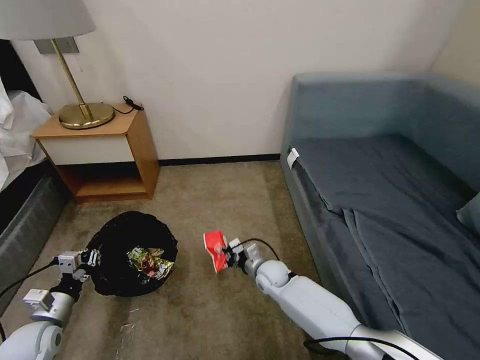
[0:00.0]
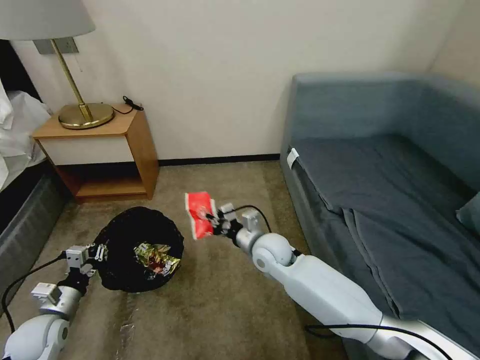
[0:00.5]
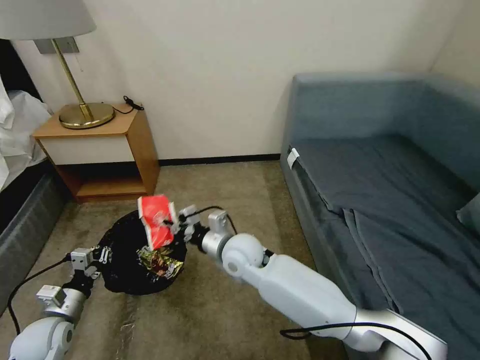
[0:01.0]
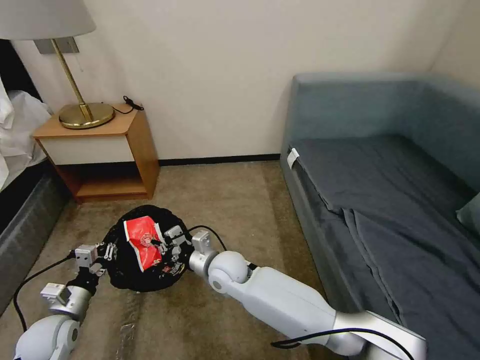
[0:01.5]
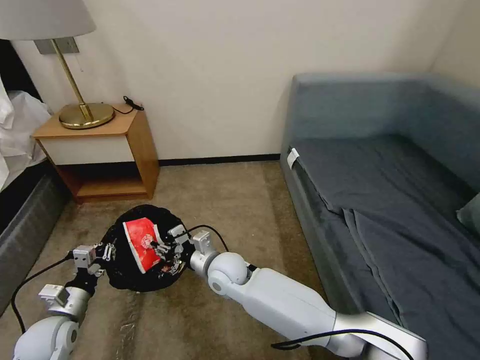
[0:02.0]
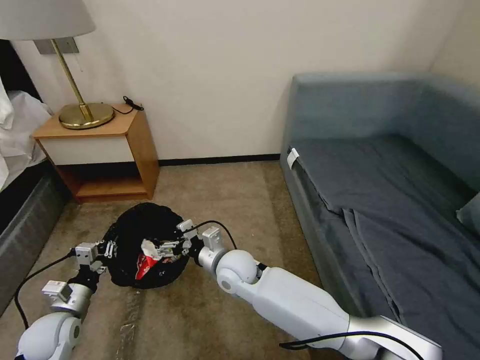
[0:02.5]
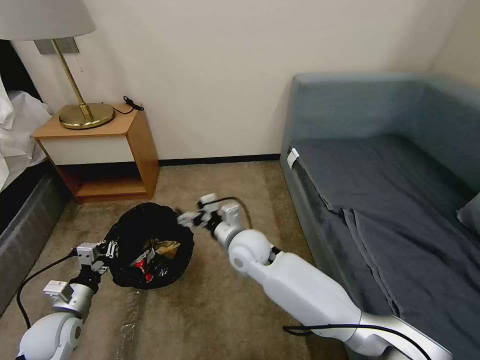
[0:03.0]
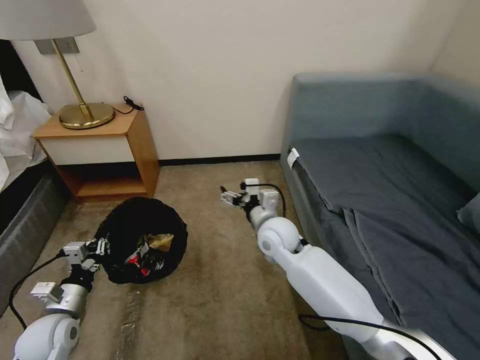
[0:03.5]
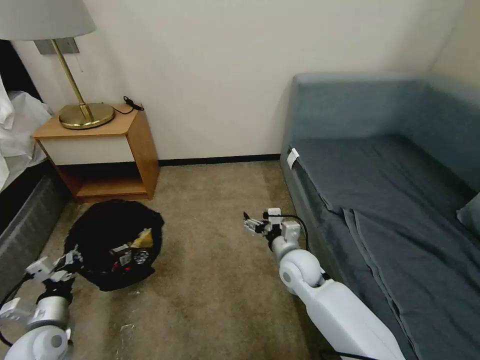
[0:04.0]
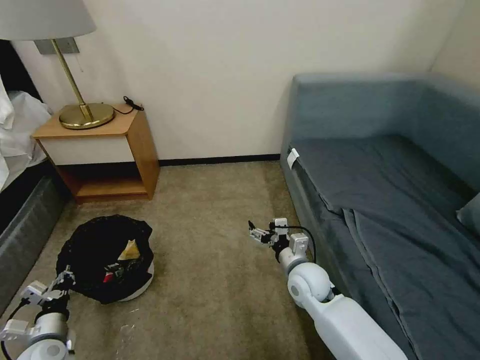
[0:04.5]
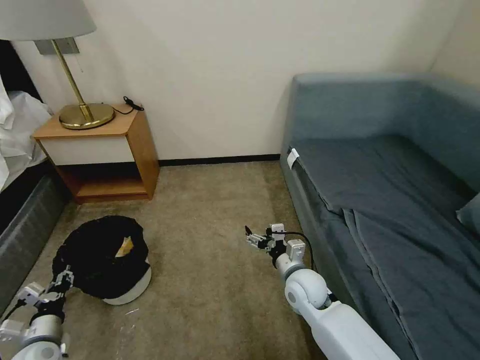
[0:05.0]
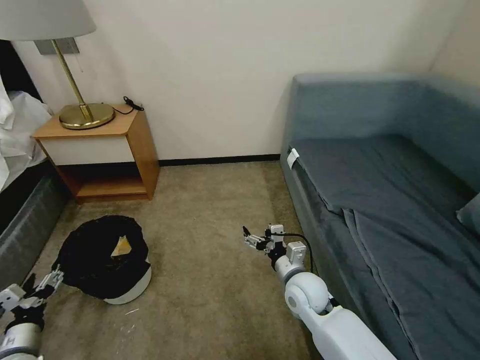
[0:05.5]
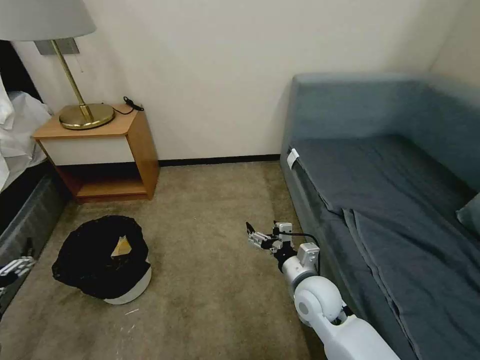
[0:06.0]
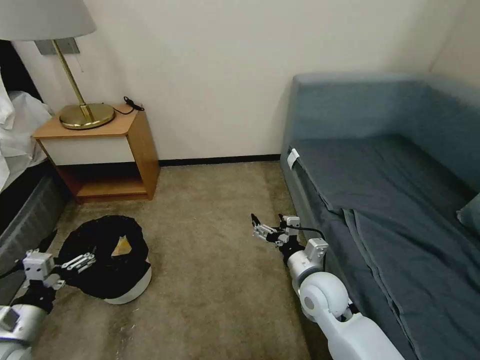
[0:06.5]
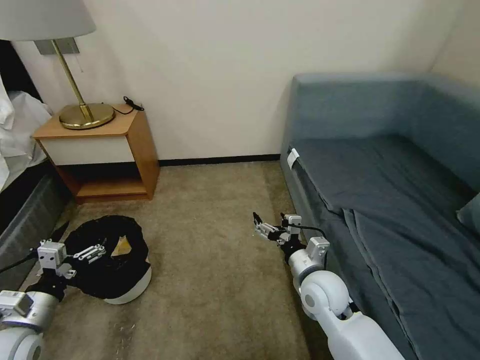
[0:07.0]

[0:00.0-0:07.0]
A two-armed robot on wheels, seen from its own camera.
Task of the whole recording: Pick up the trash bin, then pick up the garbage on the floor and place it into the trash bin.
0:00.0 to 0:02.0: The right gripper travels to the left and upward by roughly 20 cm, and opens its fingers.
0:02.0 to 0:03.5: The right gripper travels to the right, upward and forward by some 15 cm, and opens.
0:03.5 to 0:05.0: The right gripper shifts about 15 cm downward, backward and to the right; the left gripper moves downward, approximately 5 cm, and opens its fingers.
0:05.0 to 0:07.0: The left gripper shifts some 15 cm upward, and opens its fingers; the right gripper heads upward, covering some 5 cm.

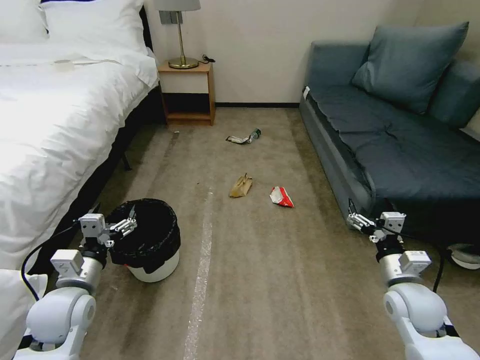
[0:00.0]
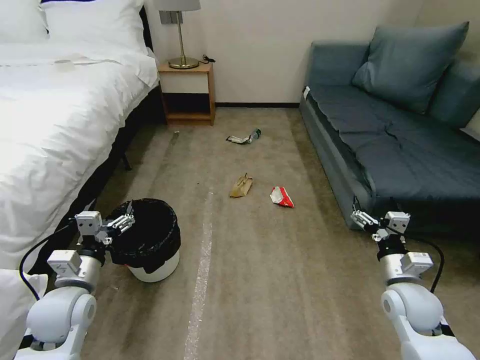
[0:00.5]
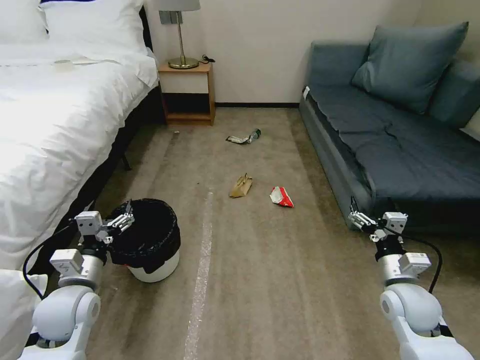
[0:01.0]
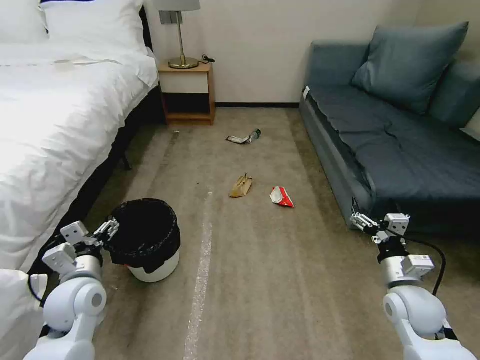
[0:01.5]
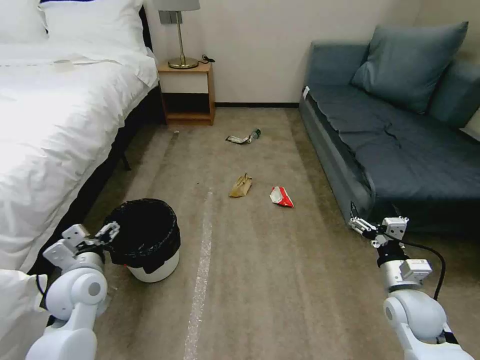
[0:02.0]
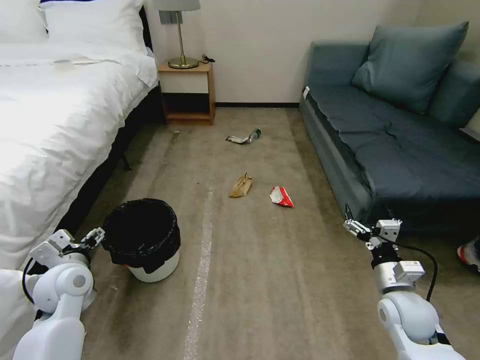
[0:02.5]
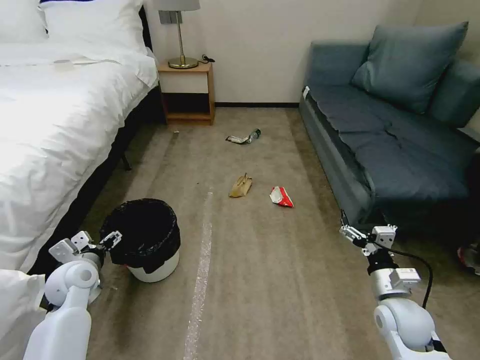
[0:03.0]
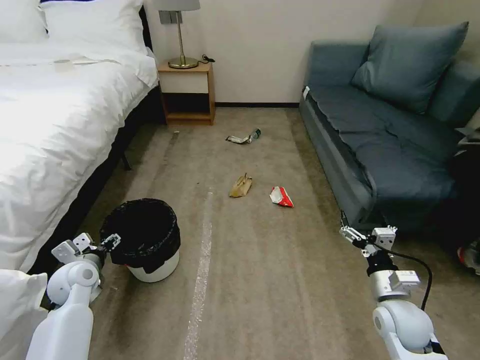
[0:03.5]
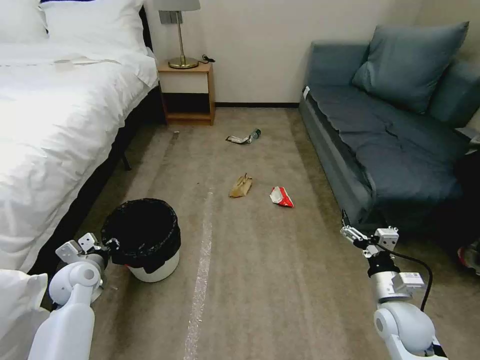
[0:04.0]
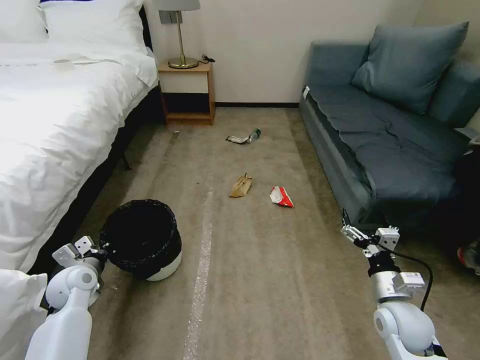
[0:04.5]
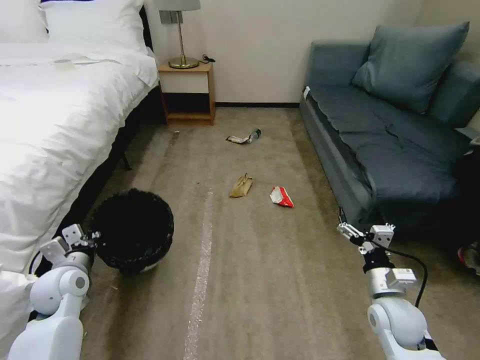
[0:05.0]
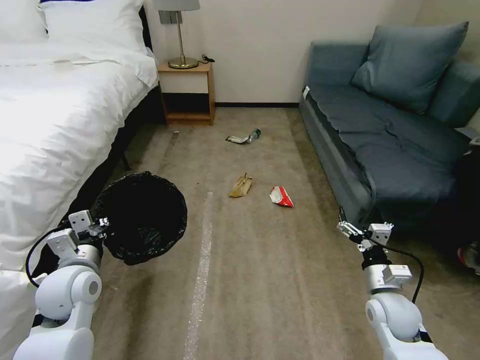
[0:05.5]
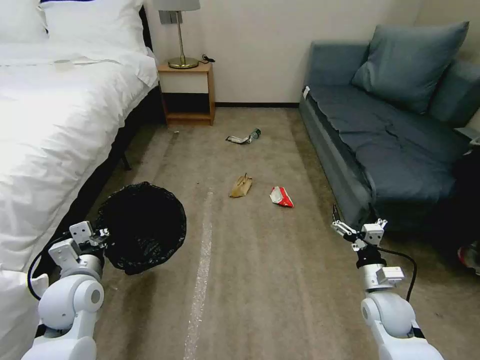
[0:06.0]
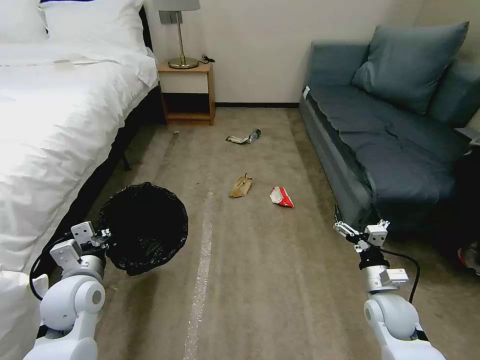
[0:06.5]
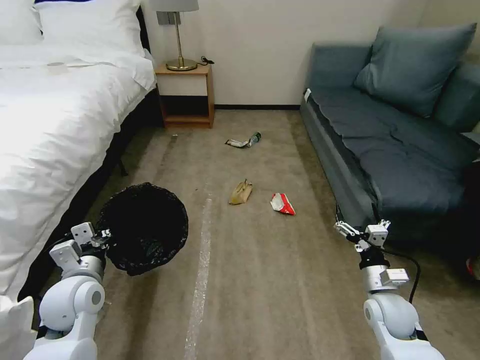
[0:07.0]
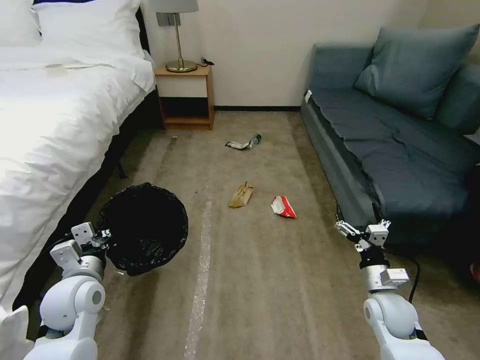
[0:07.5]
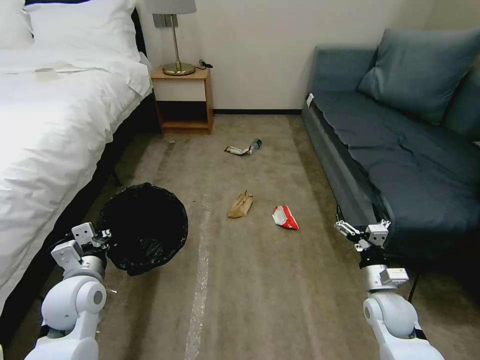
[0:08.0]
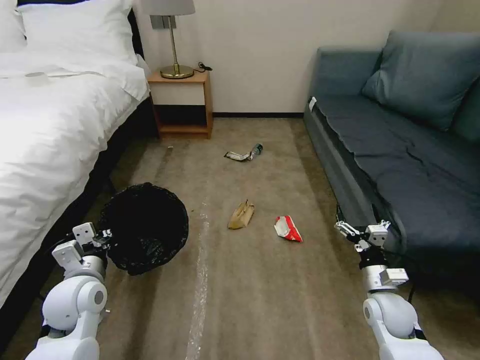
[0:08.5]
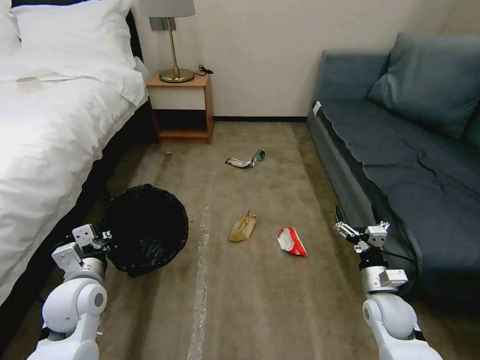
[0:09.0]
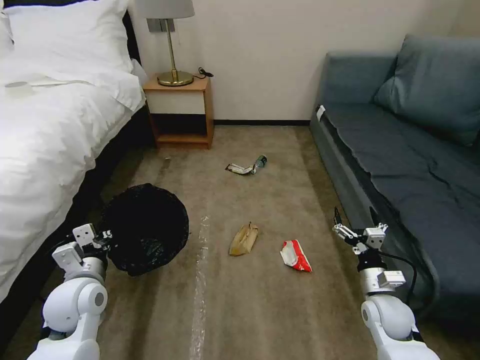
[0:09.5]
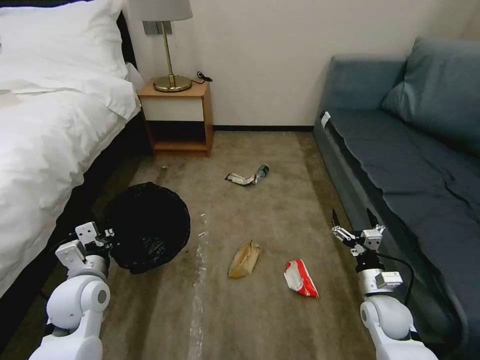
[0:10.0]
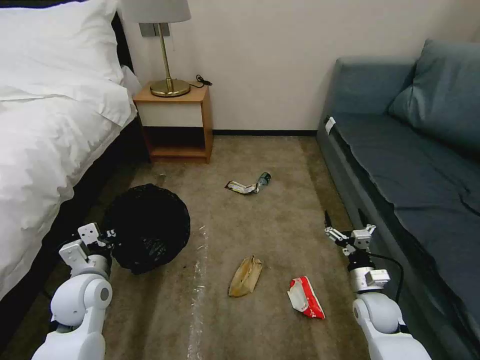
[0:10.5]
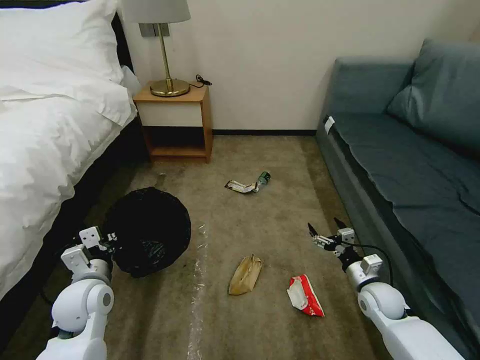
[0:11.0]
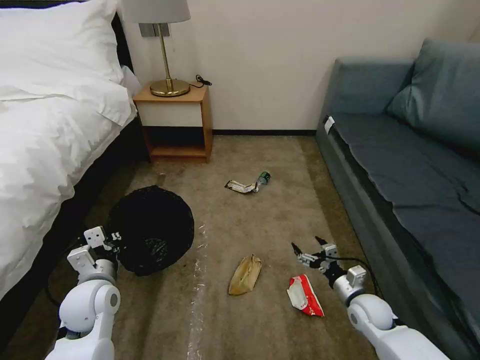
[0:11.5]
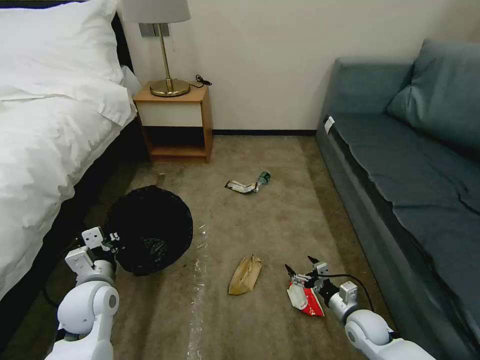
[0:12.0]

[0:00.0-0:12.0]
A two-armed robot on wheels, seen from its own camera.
Task of the whole recording: Pick up the trash bin, then pick up the garbage on the floor and place it into the trash bin.
0:02.0 to 0:04.0: The left gripper is displaced downward, to the left and forward by some 10 cm, and closes its fingers.
0:04.0 to 0:06.0: The left gripper travels upward, backward and to the right by roughly 10 cm.
0:10.0 to 0:12.0: The right gripper is displaced downward by approximately 10 cm.

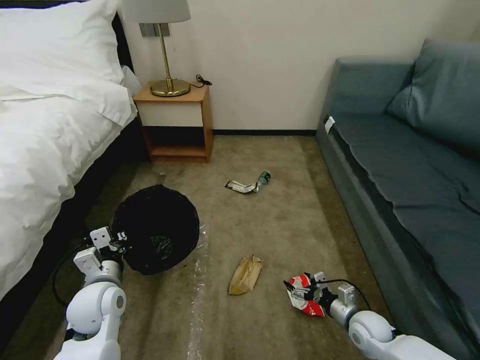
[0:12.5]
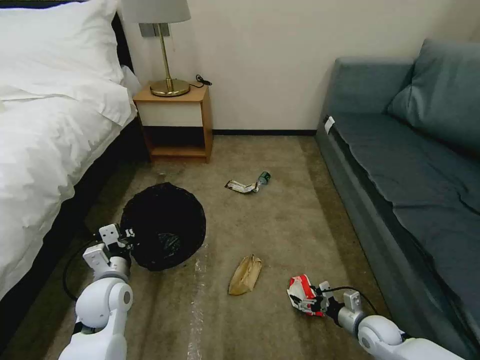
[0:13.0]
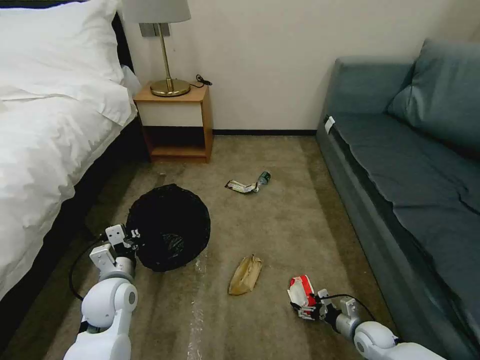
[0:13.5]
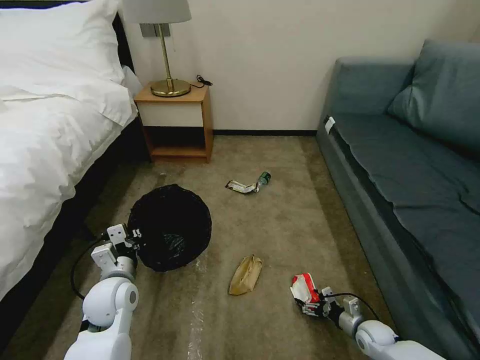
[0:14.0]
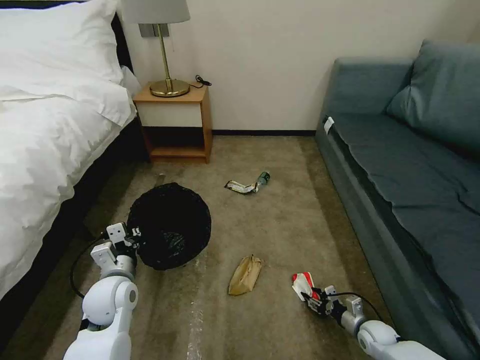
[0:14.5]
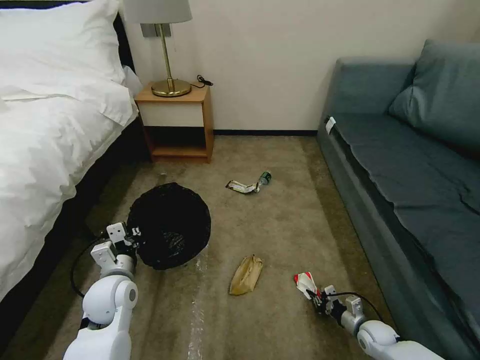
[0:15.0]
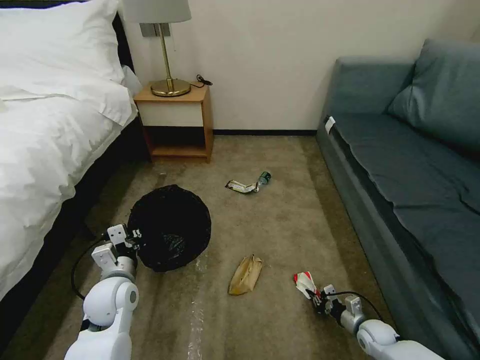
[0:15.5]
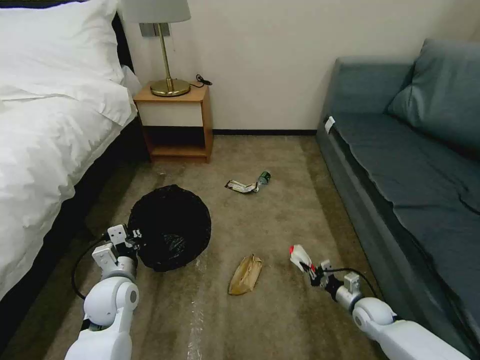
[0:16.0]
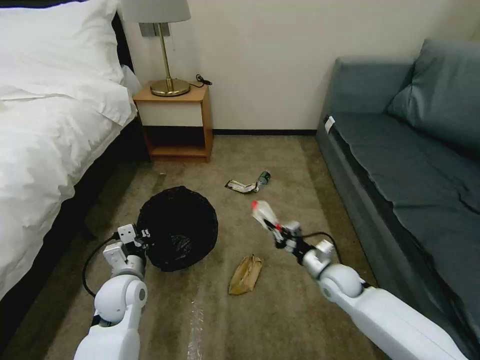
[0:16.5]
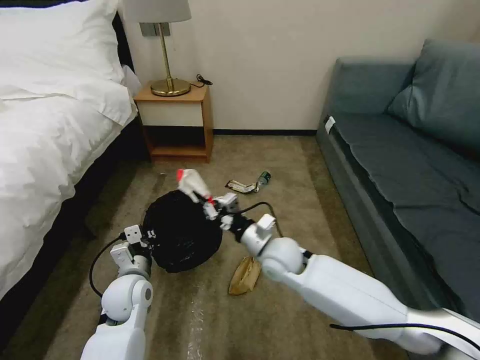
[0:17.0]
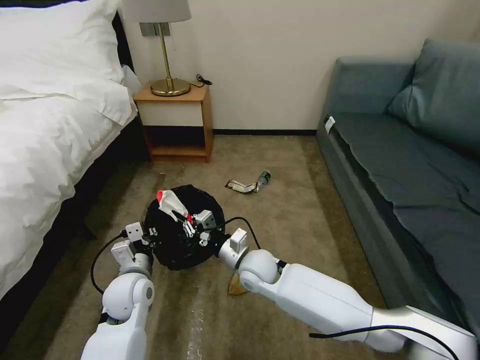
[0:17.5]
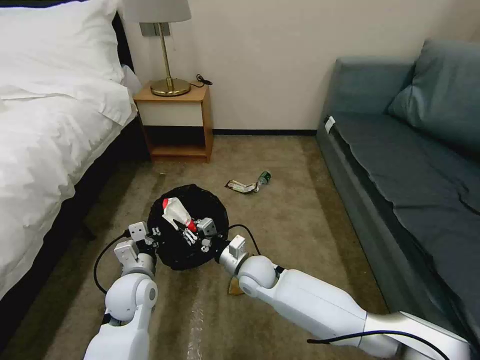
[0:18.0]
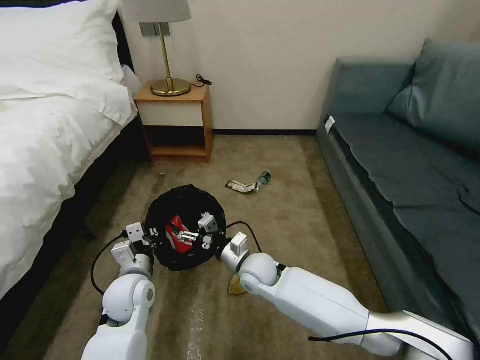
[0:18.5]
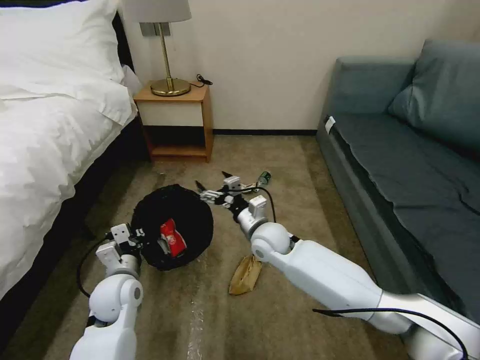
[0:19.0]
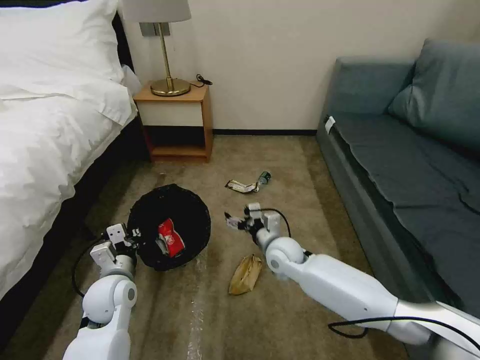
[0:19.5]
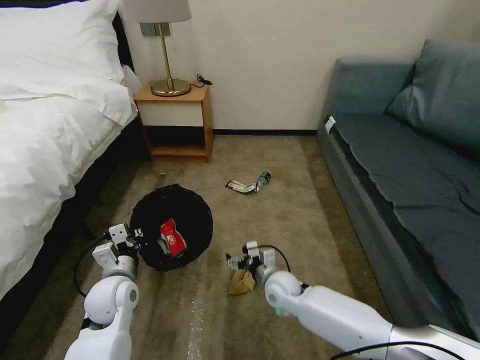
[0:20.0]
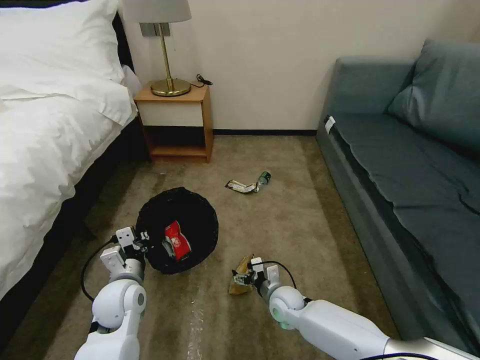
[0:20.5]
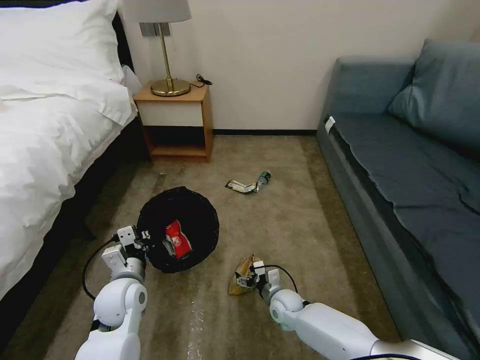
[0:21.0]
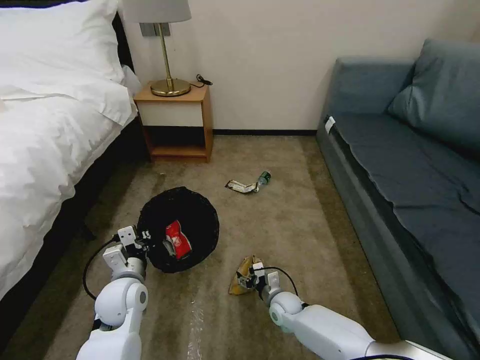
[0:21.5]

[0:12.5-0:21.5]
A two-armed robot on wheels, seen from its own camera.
Task of the whole recording: Pick up the trash bin, then pick up the garbage on the floor and place it into the trash bin.
0:12.5 to 0:14.5: The right gripper is displaced downward and to the right by roughly 10 cm, and closes its fingers.
0:14.5 to 0:17.0: The right gripper travels to the left and upward by roughly 40 cm, and closes.
0:17.0 to 0:19.5: The right gripper reaches roughly 5 cm to the left, then returns, and opens its fingers.
0:19.5 to 0:21.5: The right gripper shifts some 20 cm downward.
